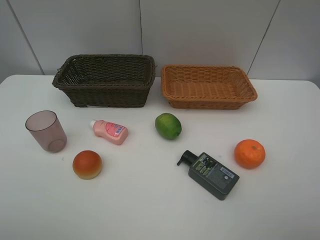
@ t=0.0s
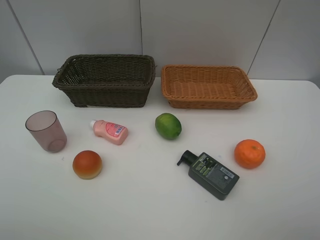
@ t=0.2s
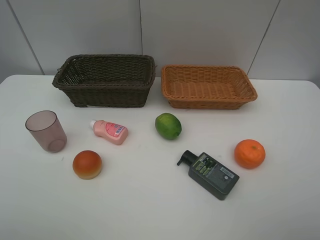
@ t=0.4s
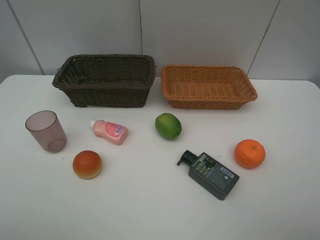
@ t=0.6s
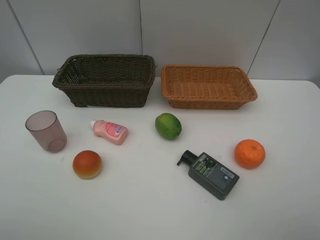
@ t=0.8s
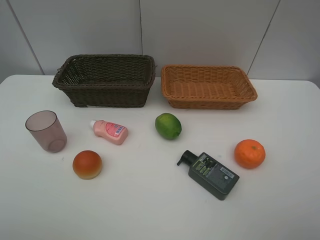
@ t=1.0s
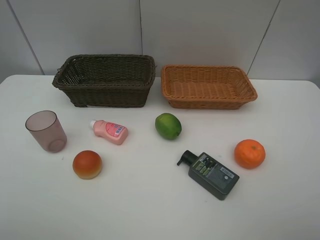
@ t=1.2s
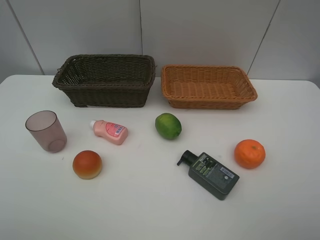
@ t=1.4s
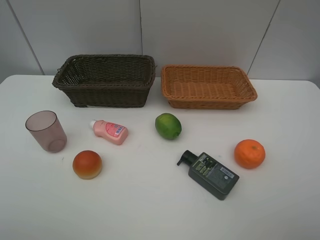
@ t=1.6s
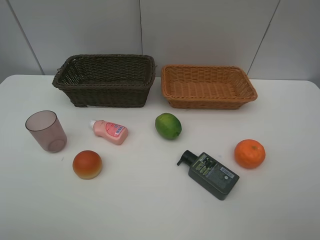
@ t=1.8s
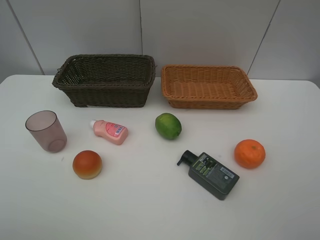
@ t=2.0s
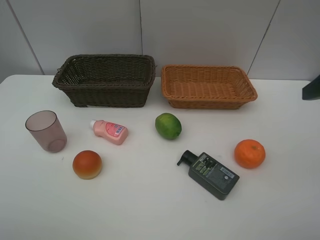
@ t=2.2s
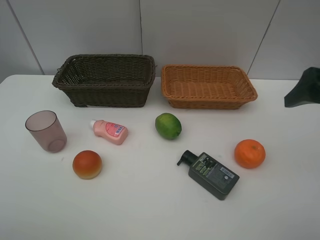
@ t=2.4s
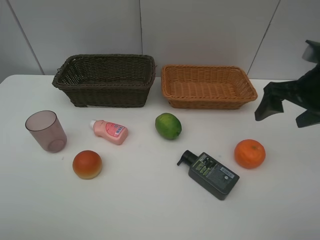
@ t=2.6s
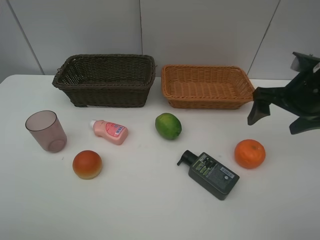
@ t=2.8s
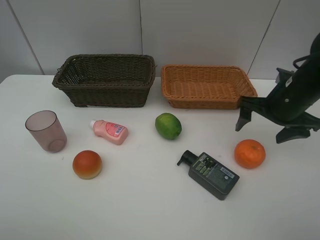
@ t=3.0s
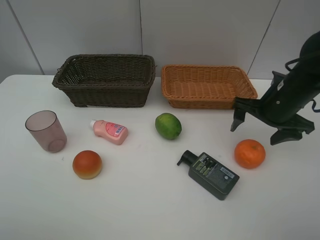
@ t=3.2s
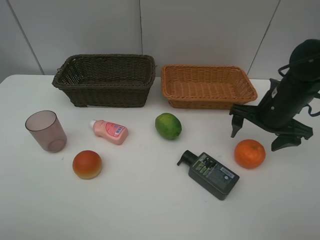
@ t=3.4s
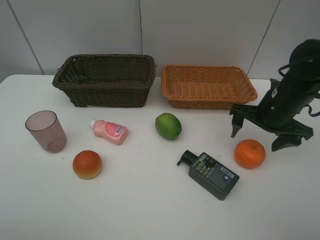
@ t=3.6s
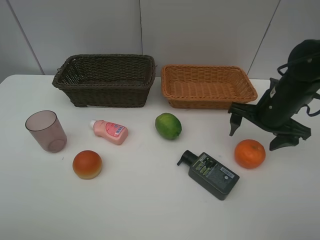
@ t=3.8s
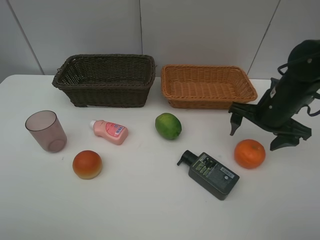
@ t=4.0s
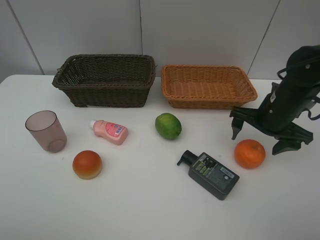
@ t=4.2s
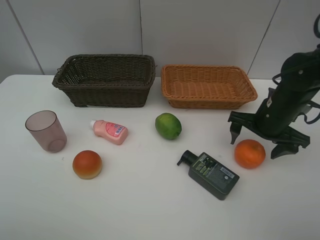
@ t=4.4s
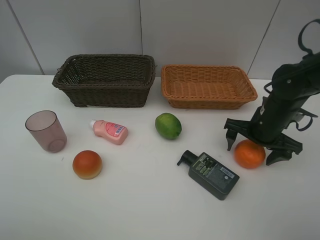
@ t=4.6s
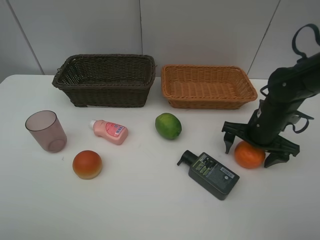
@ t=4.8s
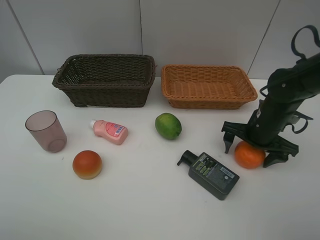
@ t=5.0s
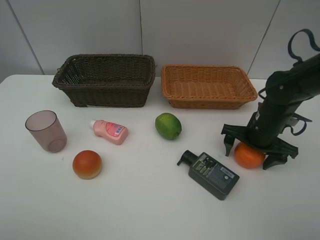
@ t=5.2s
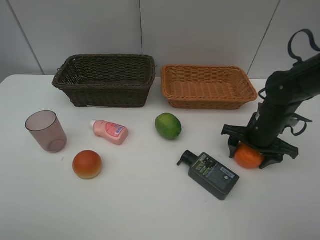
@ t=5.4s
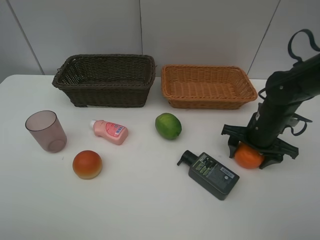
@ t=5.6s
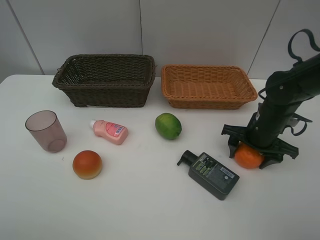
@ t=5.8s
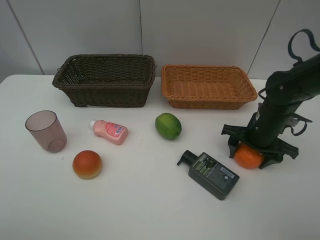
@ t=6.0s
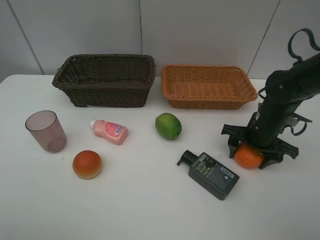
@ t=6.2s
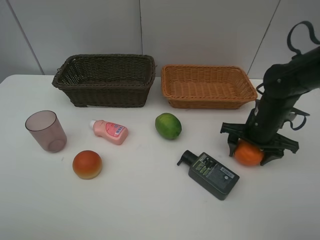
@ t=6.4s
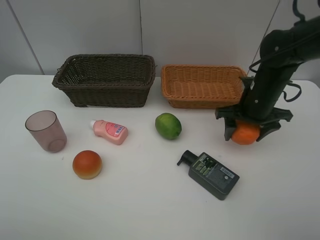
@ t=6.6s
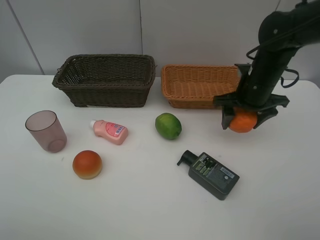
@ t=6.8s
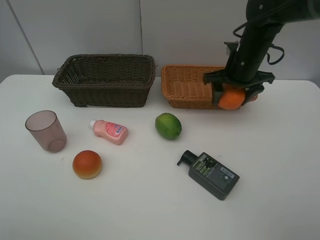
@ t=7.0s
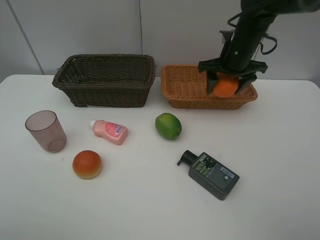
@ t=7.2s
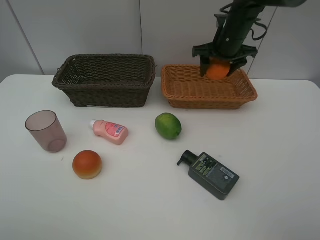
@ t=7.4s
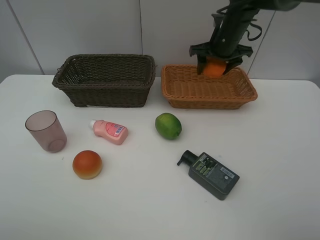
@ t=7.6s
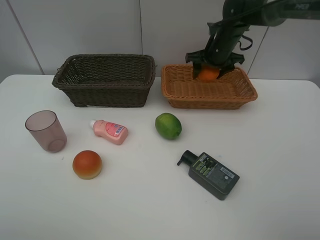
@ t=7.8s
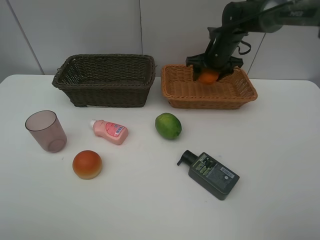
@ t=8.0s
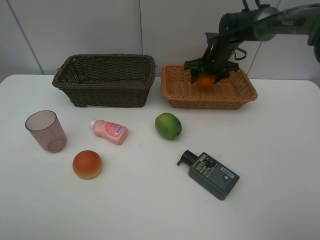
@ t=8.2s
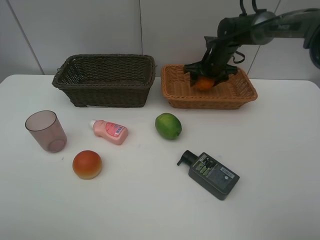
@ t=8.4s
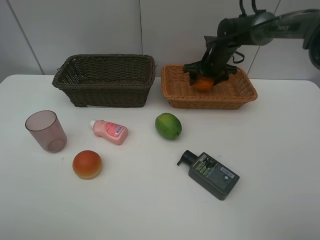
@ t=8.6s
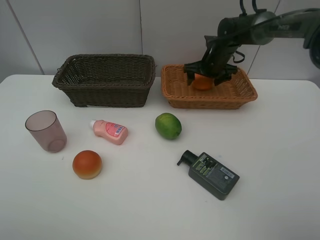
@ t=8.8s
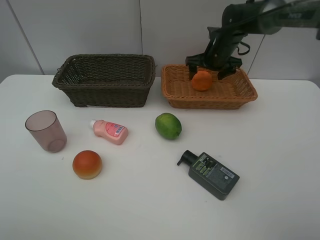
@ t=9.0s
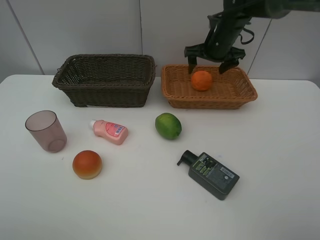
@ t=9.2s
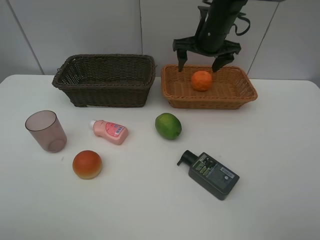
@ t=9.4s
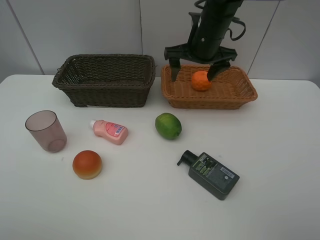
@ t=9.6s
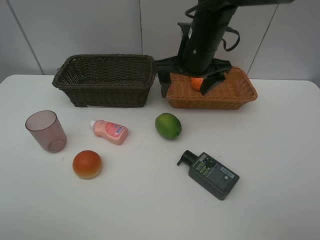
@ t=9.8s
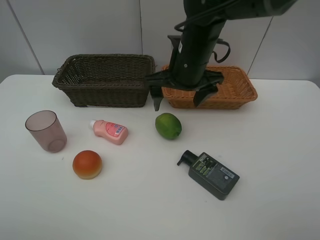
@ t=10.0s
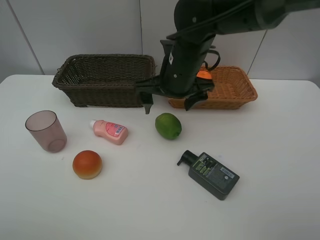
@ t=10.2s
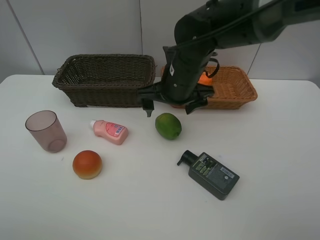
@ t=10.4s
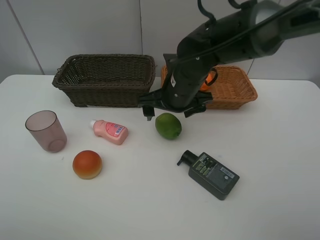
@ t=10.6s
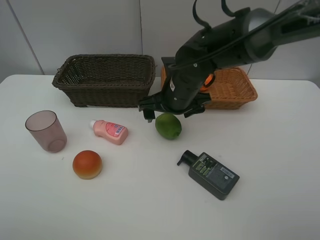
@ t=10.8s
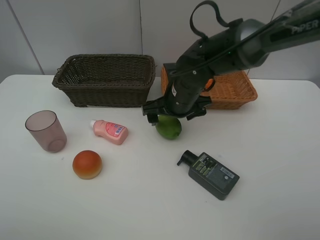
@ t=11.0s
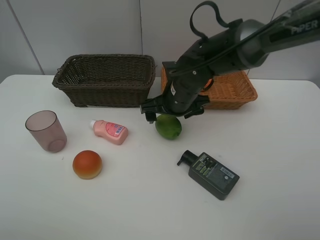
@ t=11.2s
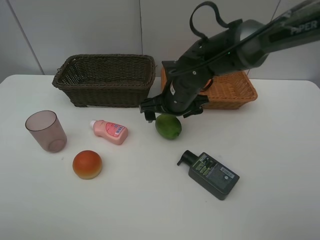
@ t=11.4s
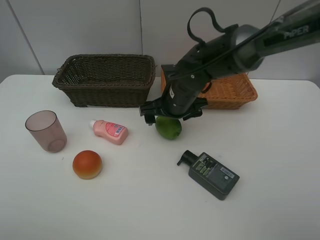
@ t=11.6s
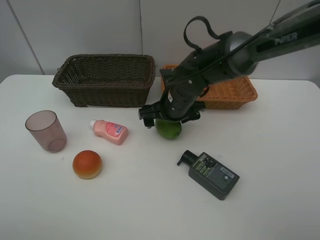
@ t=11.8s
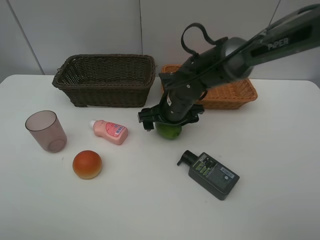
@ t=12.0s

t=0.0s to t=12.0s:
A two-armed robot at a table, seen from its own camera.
Task of the whole recording: place multiple objects separately in different baskets.
t=1.6s to t=3.0s: The right gripper goes about 25 cm forward.
t=3.0s to t=4.4s: The grippers stay close to where they were, moving slightly.
t=4.4s to t=6.0s: The right gripper closes its fingers.
t=6.0s to t=7.6s: The right gripper travels forward and upward by about 20 cm.
t=7.6s to t=9.0s: The right gripper opens.
t=9.0s to t=10.4s: The right gripper travels backward and to the left by approximately 20 cm.
t=10.4s to t=12.0s: The right gripper moves downward, some 10 cm.

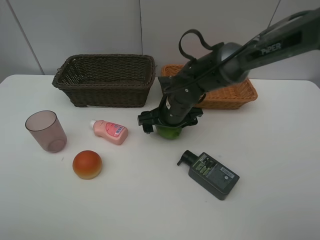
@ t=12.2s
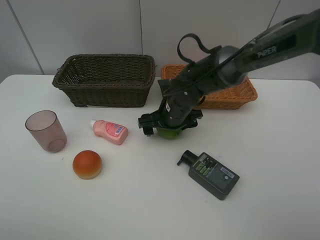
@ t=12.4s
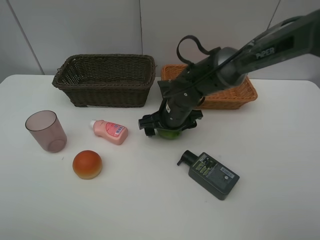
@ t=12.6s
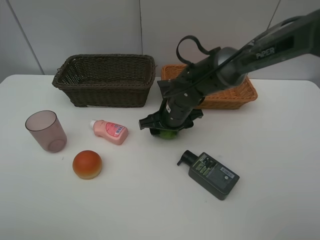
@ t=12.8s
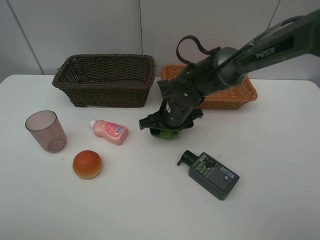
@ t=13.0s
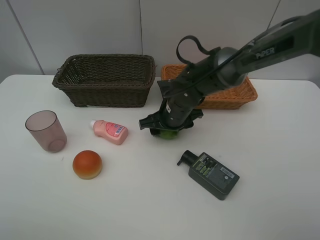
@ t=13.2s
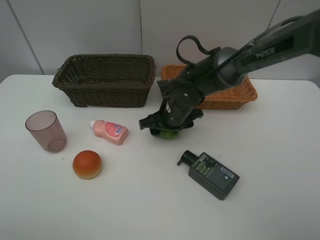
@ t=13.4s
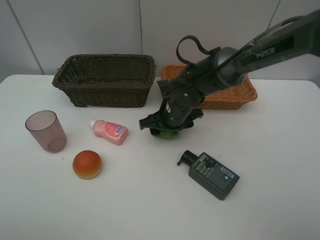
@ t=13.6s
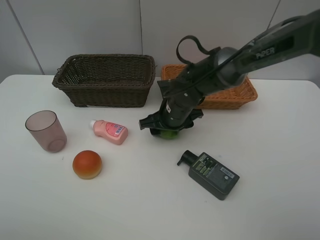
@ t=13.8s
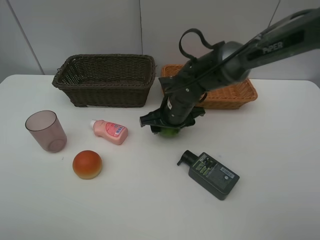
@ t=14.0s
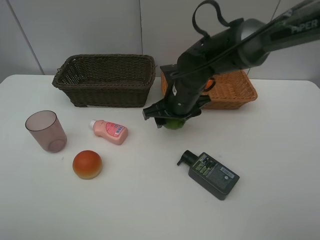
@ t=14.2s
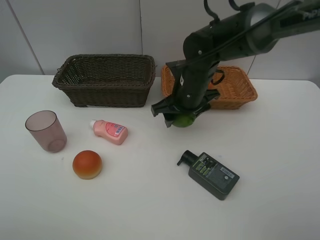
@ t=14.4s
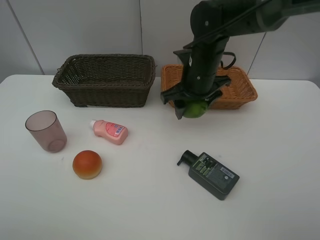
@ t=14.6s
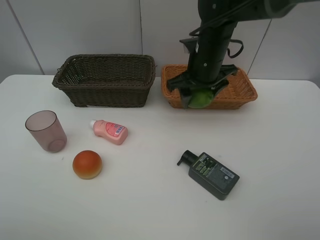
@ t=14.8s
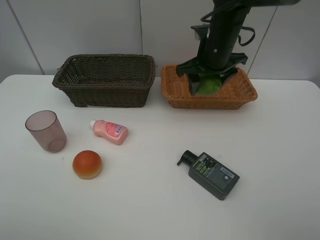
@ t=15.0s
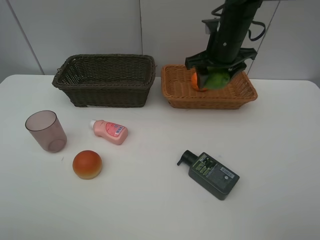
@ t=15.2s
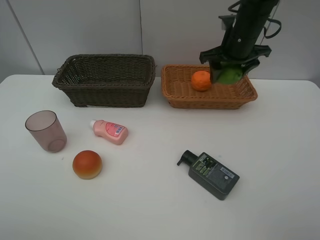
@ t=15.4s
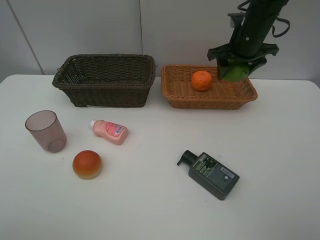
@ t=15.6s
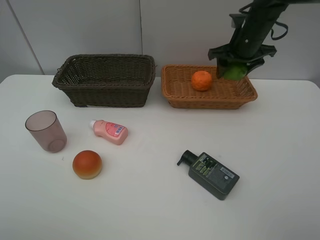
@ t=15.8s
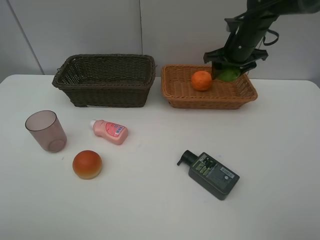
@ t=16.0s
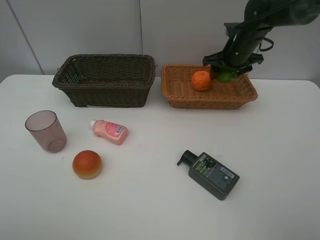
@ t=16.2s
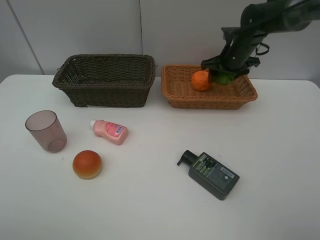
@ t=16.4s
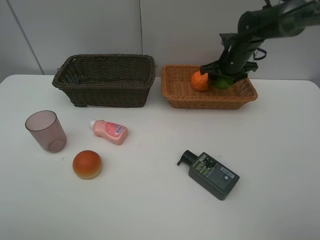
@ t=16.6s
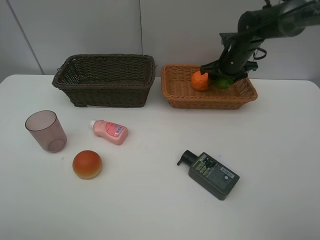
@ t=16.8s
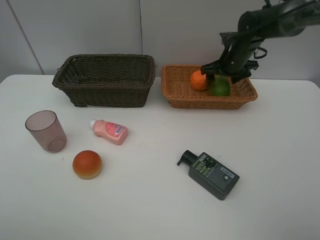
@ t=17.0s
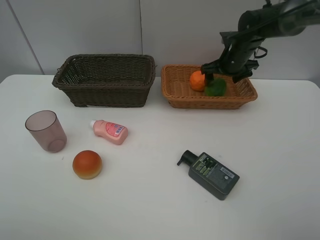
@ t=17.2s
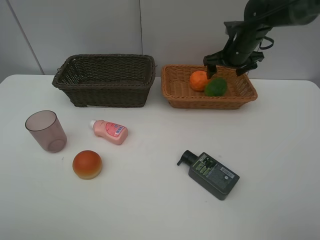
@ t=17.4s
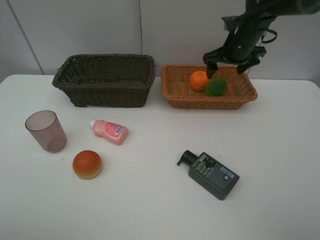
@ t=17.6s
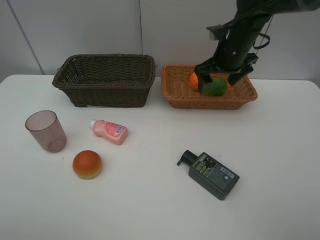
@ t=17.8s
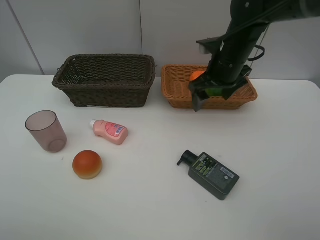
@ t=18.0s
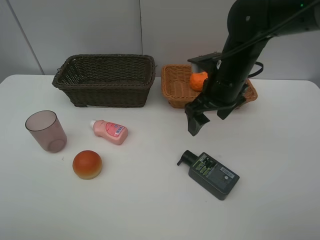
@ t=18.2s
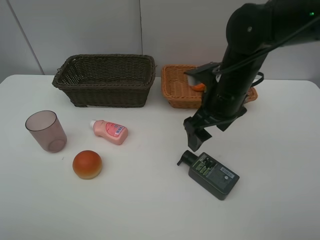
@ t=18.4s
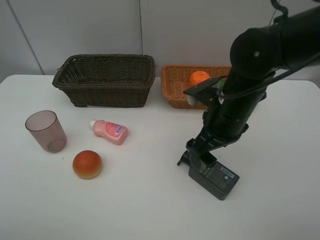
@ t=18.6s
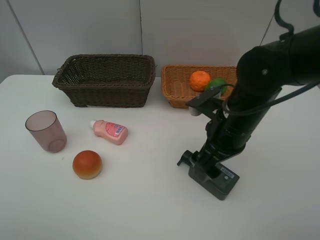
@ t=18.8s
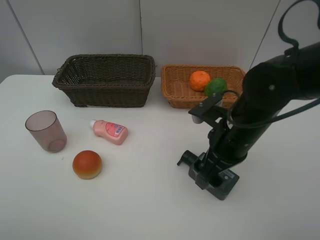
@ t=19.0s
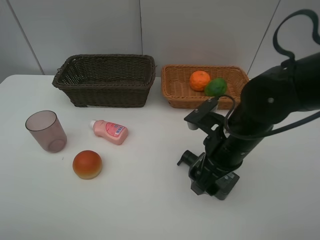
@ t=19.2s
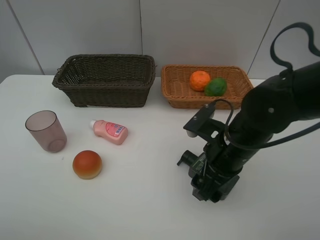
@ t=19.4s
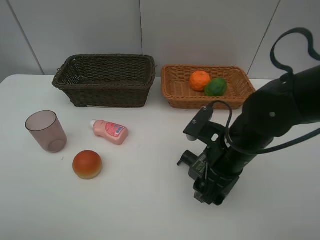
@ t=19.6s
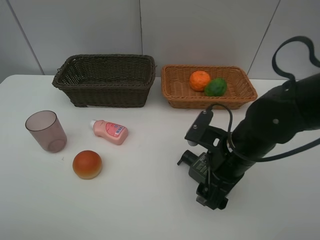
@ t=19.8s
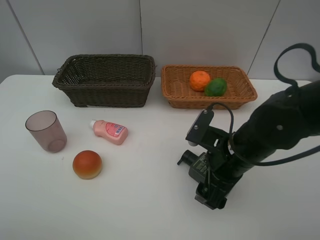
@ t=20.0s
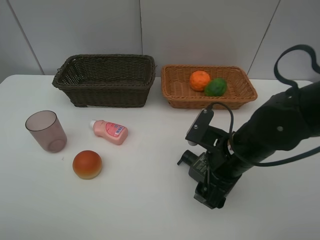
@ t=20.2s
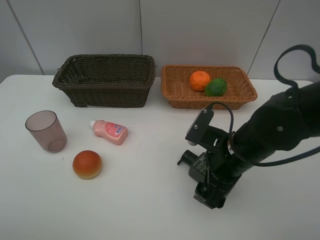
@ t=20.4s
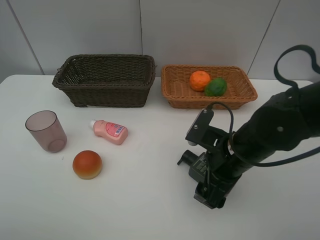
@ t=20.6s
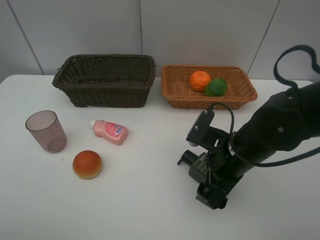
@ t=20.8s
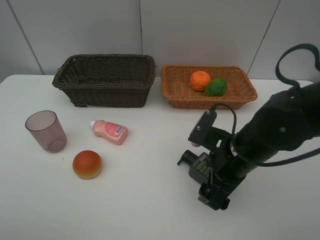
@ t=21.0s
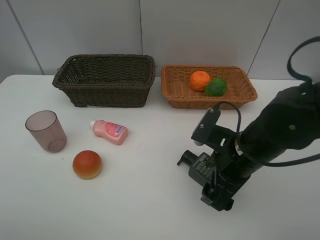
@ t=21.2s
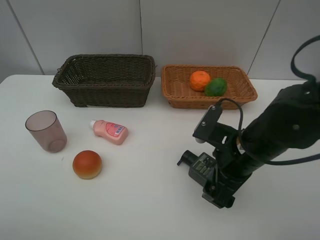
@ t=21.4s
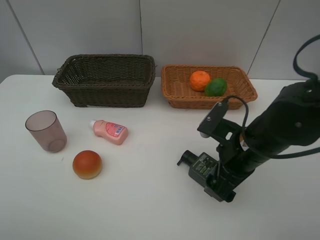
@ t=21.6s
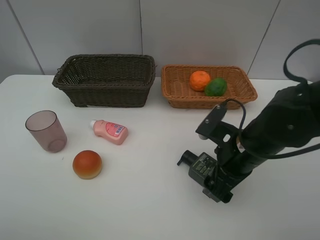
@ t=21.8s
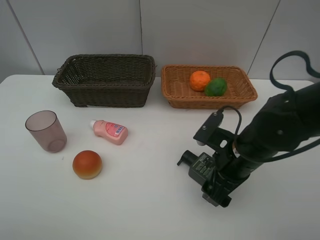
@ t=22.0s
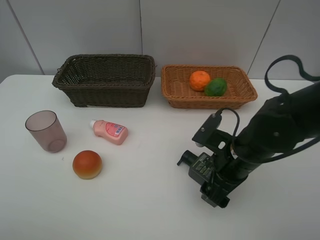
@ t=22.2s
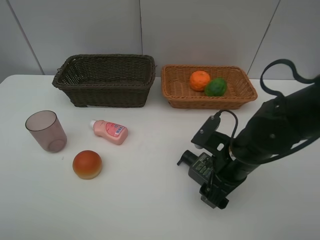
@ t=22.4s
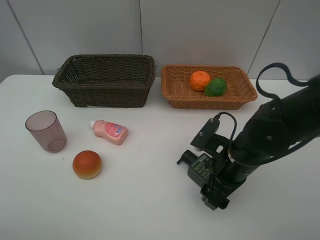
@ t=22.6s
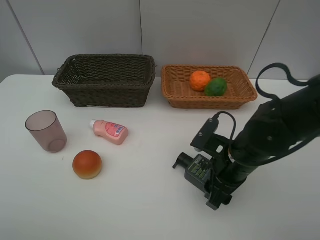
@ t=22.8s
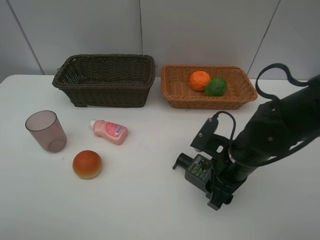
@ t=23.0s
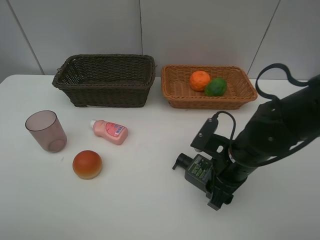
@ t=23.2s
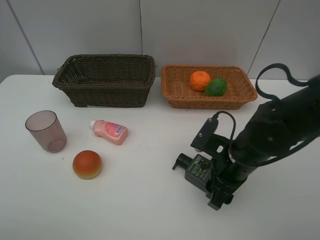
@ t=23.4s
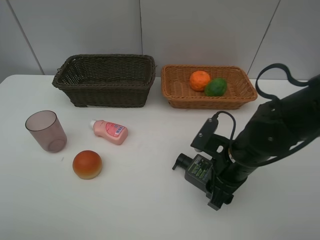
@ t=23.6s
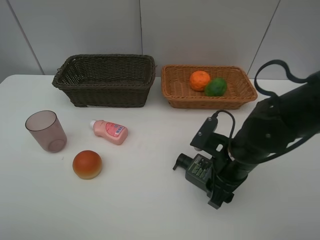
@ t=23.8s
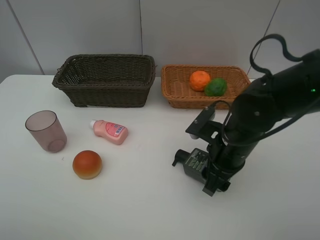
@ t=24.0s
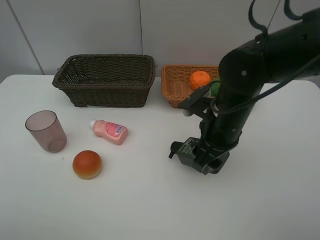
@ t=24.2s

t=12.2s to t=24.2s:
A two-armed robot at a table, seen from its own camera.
Task of the whole recording: place multiple objects separately in different baskets.
t=12.2s to t=13.8s: The right gripper closes up.
t=13.8s to t=15.2s: The right gripper moves upward, to the right and forward, about 20 cm.
t=15.2s to t=16.6s: The right gripper goes some 10 cm downward, forward and to the right.
t=16.6s to t=18.2s: The right gripper travels backward and to the left by roughly 20 cm, and opens.
t=18.2s to t=19.8s: The right gripper heads backward and downward, covering approximately 15 cm.
t=19.8s to t=21.2s: The grippers make only small movements.
t=21.2s to t=22.6s: The right gripper closes.
t=22.6s to t=24.2s: The right gripper travels upward by some 5 cm.
